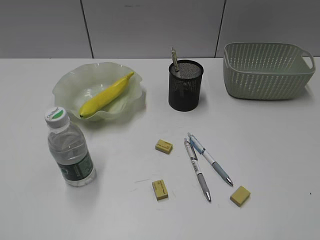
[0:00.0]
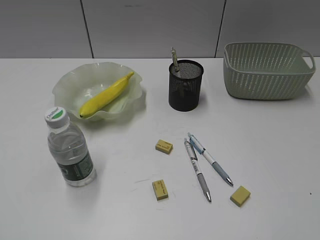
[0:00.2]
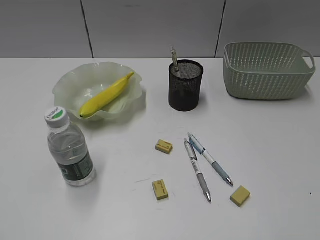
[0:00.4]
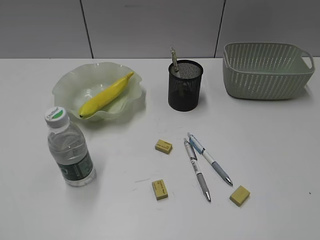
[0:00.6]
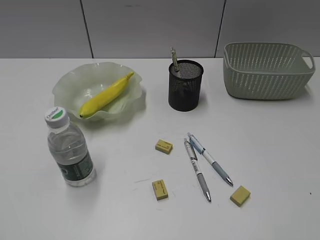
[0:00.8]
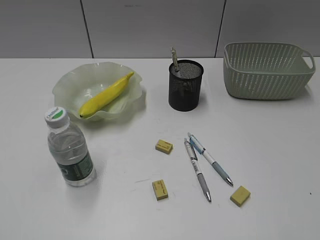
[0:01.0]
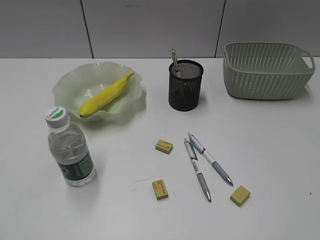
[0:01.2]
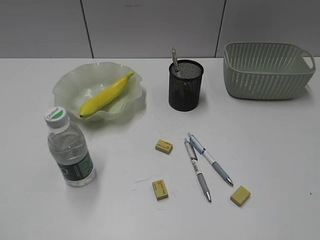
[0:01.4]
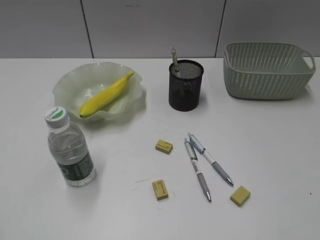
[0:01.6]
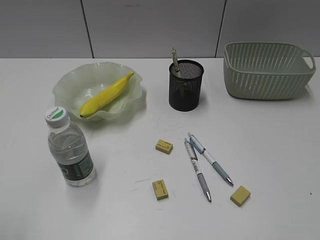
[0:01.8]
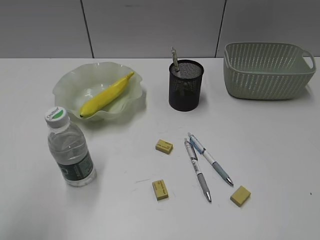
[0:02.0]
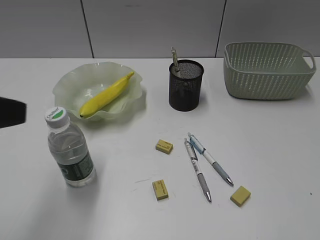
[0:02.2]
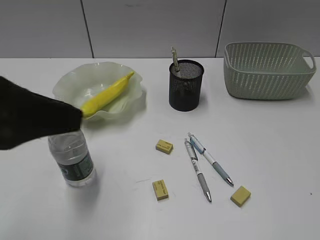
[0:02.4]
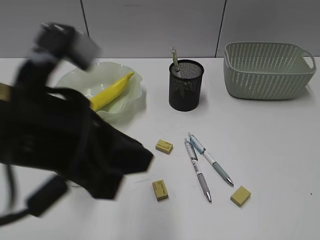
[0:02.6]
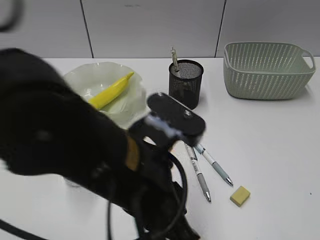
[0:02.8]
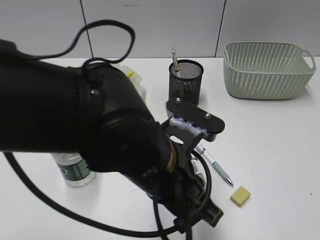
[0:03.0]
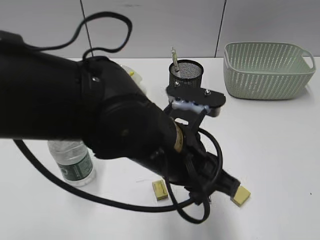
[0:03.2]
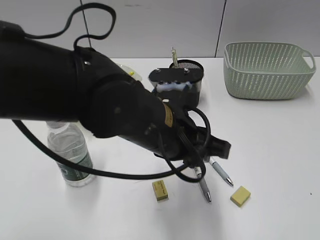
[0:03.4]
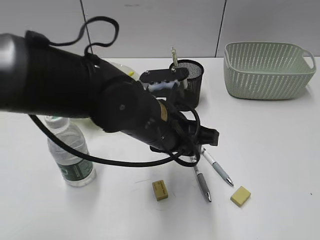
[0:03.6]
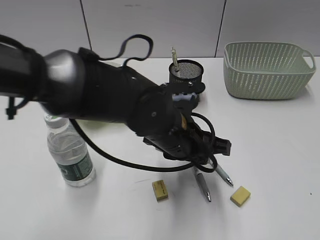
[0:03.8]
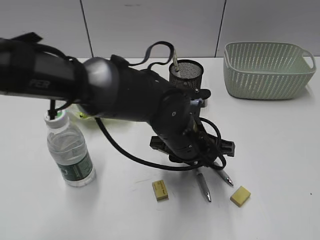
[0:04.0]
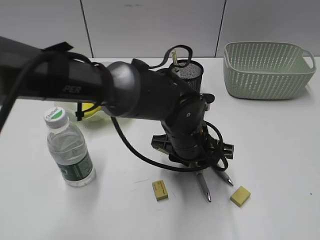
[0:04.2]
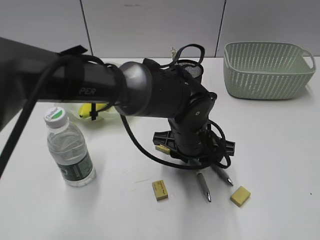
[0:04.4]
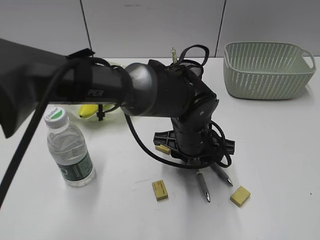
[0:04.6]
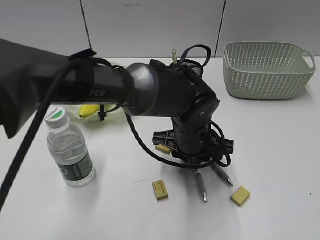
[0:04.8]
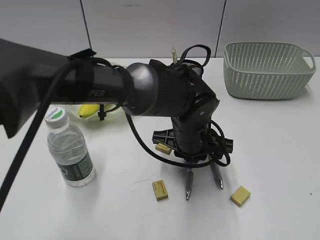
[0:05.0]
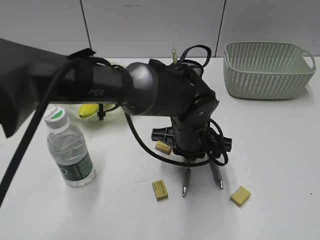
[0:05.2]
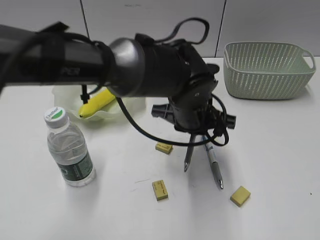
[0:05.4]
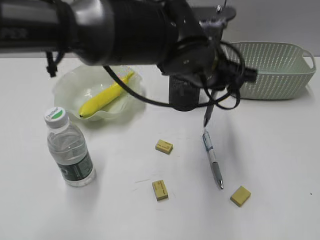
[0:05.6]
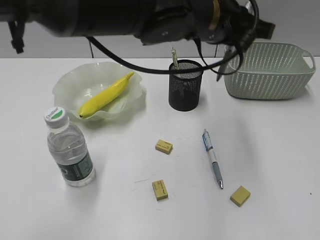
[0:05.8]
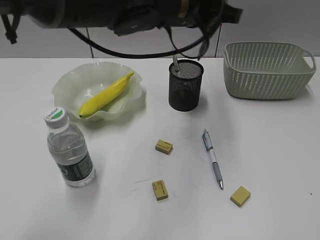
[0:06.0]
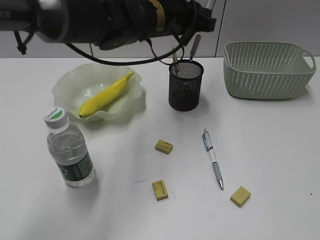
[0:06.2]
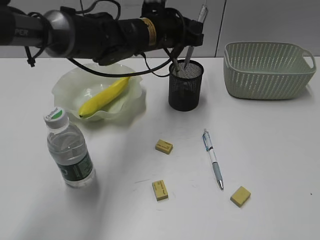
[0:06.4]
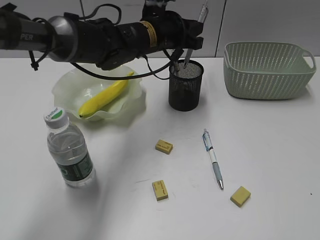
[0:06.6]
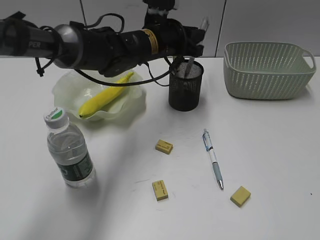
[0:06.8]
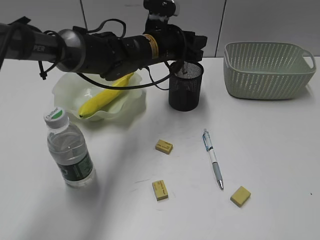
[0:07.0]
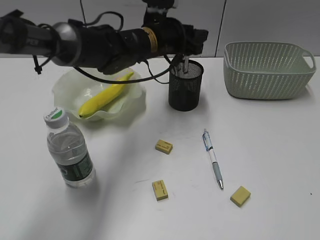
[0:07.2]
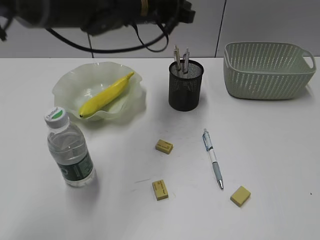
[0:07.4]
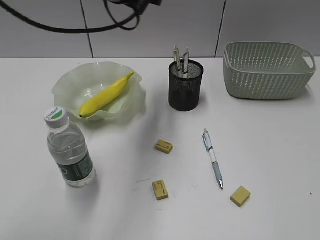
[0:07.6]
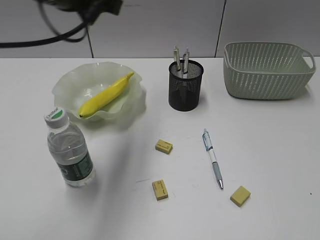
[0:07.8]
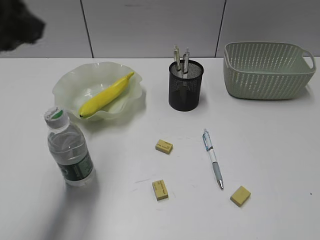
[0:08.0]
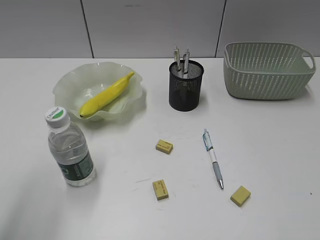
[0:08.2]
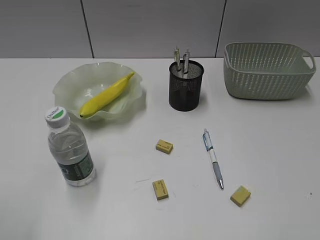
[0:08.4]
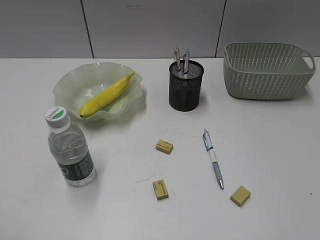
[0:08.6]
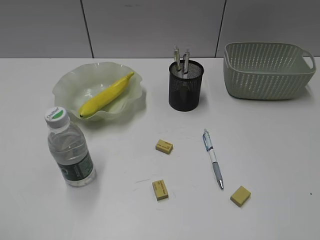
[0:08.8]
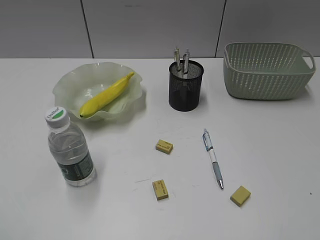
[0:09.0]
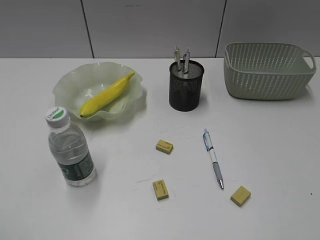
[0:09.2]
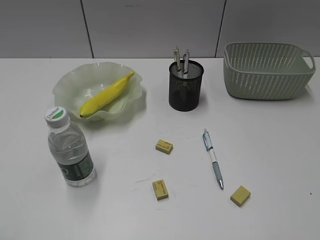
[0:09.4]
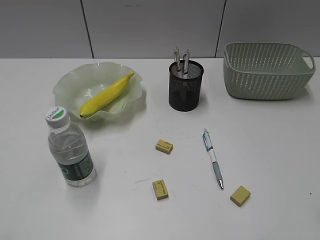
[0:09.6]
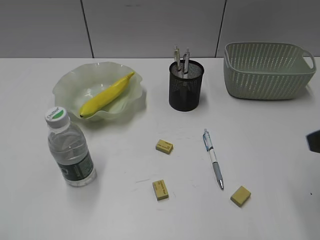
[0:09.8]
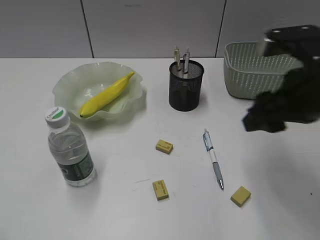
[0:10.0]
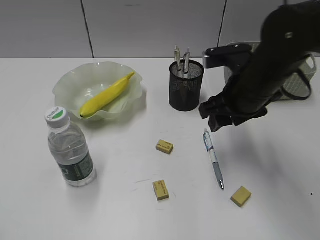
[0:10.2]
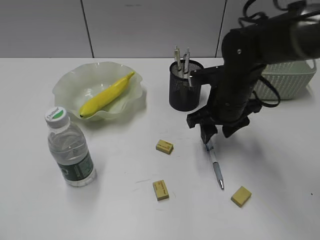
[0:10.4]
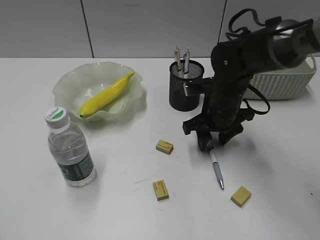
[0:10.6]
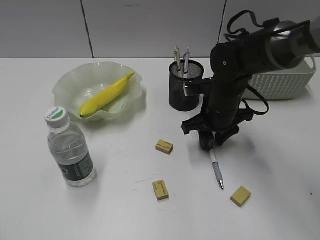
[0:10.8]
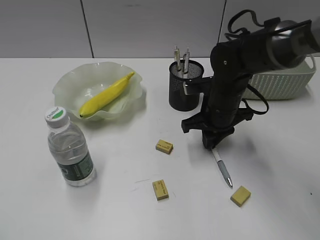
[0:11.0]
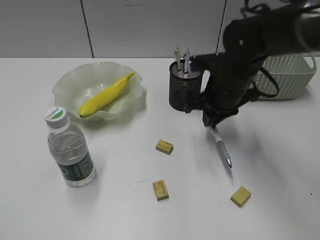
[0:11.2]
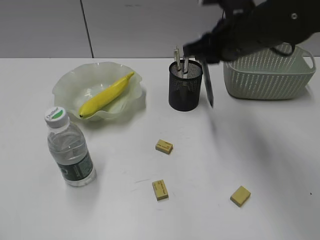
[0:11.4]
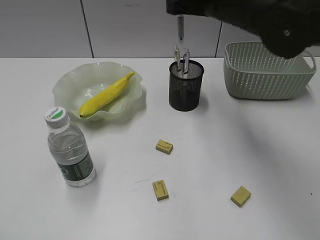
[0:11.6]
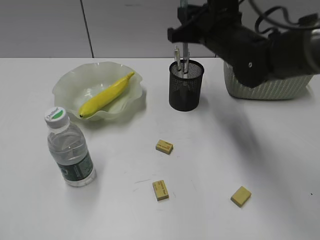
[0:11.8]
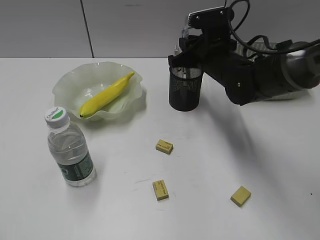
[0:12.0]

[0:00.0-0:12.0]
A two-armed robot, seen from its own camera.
Step, 0.0 to 5.0 s: Grasp the gray pen with left gripper.
Step, 5.2 to 7.2 s: Place the gray pen in pen holder with left gripper.
Step, 7.4 to 11.0 s: Grasp the blue pen with right gripper.
1.6 to 3.0 s: The left gripper is displaced to the right and forward by some 35 cm.
3.0 to 4.4 s: The left gripper goes approximately 15 cm forward, downward and to the right.
4.4 to 6.0 s: The left gripper heads upward and forward, covering roughly 20 cm, and closes.
6.0 to 7.6 s: The left gripper moves to the left, some 10 cm, travels downward and back again, approximately 10 cm each way, and opens.
7.6 to 9.0 s: The left gripper heads backward and to the left, covering some 50 cm, and opens.
9.0 to 10.4 s: The right gripper goes approximately 40 cm forward, to the left and downward.
10.4 to 12.0 s: The right gripper moves up and down over about 15 cm, changing direction 2 times, and closes.

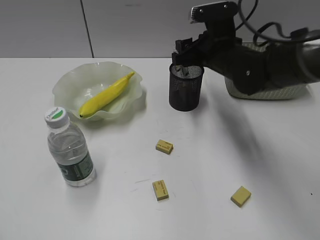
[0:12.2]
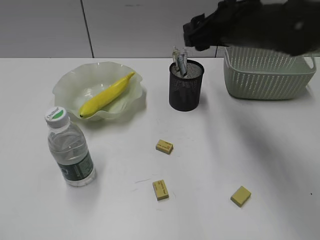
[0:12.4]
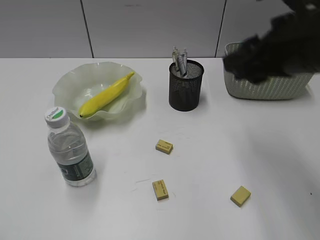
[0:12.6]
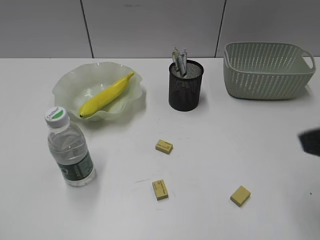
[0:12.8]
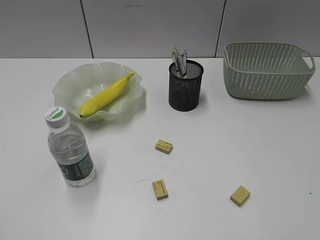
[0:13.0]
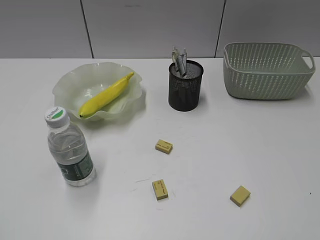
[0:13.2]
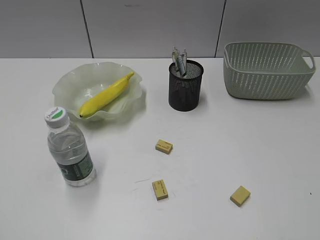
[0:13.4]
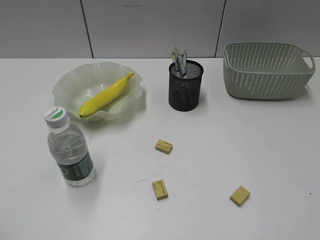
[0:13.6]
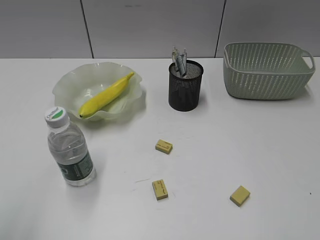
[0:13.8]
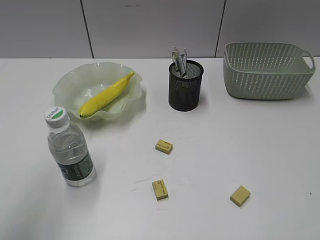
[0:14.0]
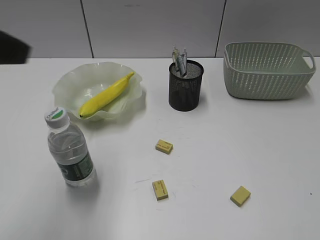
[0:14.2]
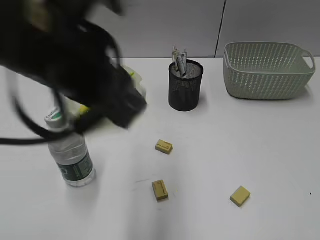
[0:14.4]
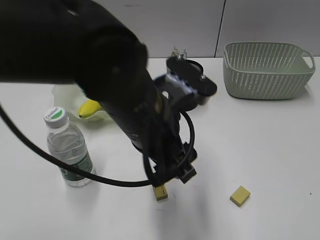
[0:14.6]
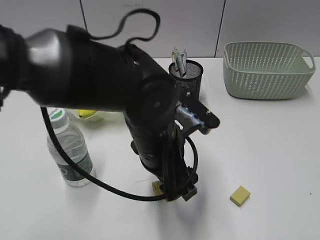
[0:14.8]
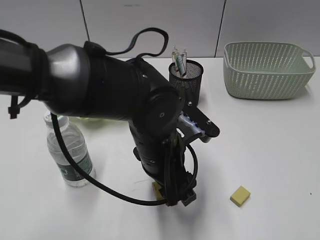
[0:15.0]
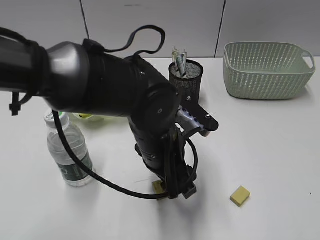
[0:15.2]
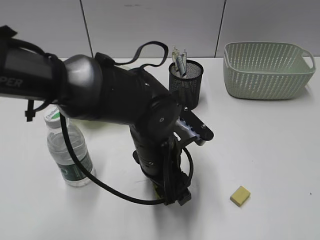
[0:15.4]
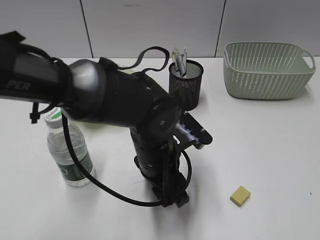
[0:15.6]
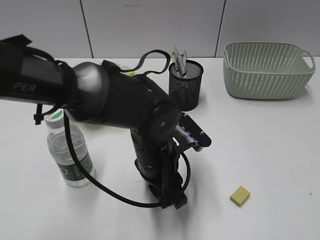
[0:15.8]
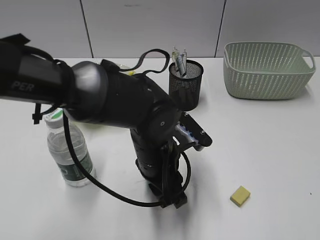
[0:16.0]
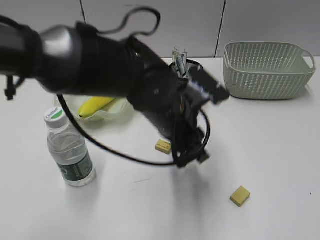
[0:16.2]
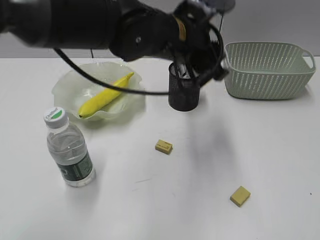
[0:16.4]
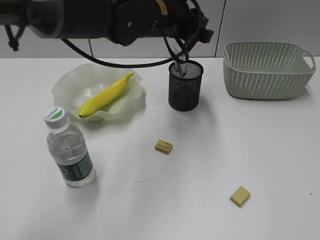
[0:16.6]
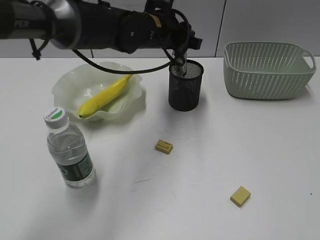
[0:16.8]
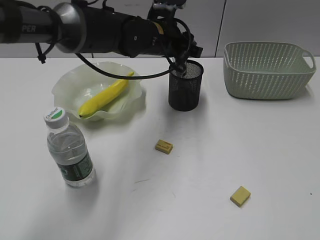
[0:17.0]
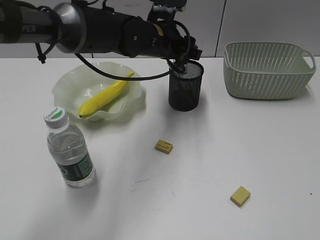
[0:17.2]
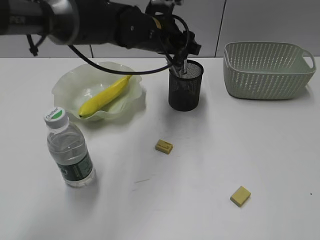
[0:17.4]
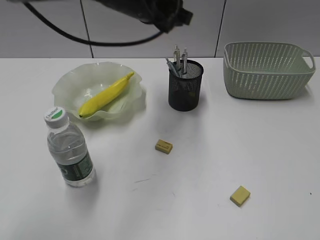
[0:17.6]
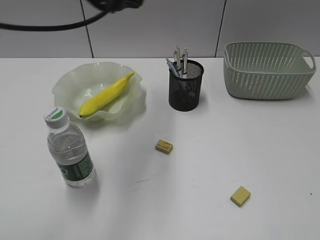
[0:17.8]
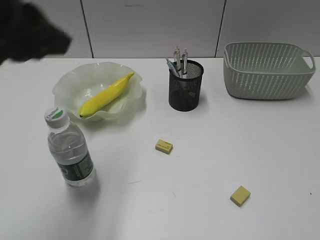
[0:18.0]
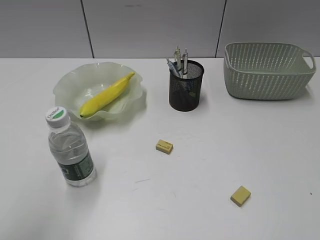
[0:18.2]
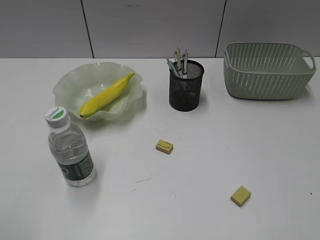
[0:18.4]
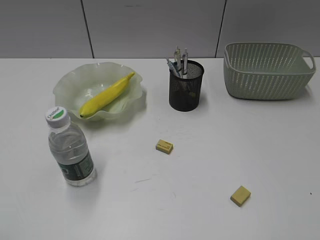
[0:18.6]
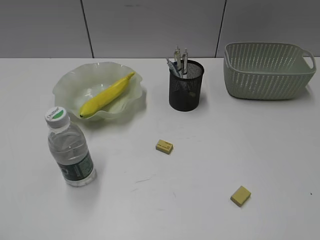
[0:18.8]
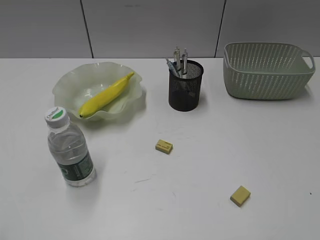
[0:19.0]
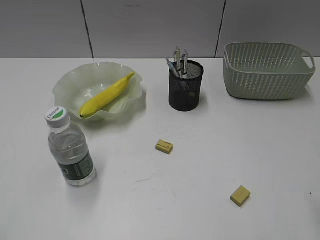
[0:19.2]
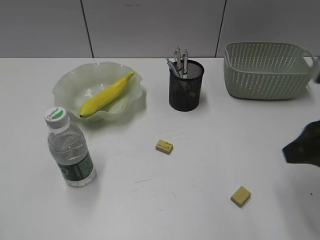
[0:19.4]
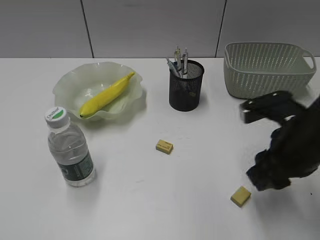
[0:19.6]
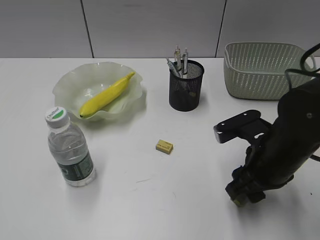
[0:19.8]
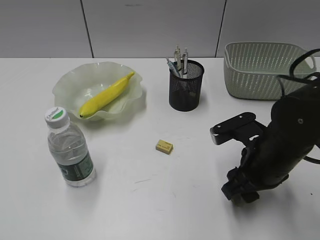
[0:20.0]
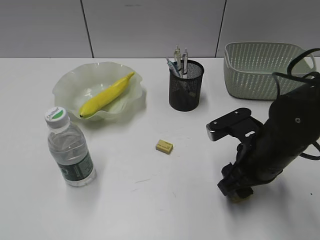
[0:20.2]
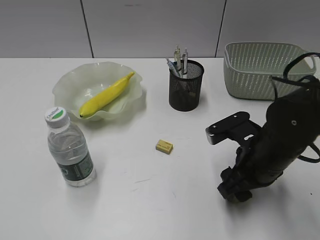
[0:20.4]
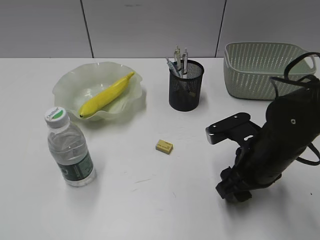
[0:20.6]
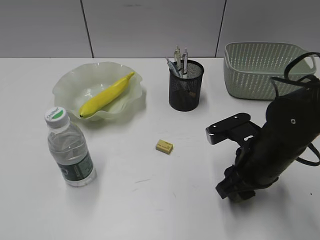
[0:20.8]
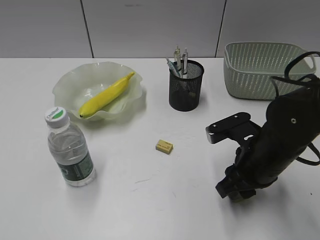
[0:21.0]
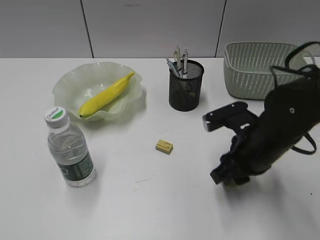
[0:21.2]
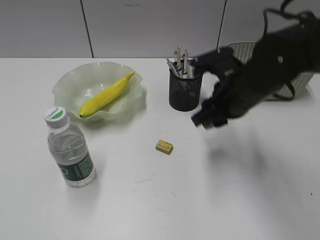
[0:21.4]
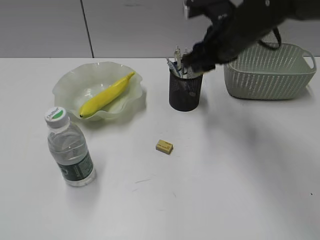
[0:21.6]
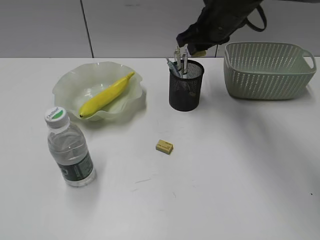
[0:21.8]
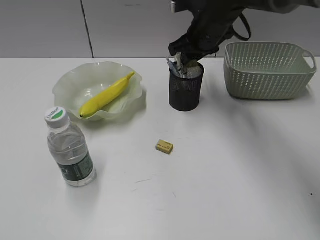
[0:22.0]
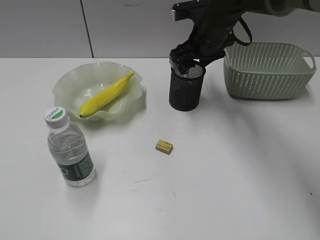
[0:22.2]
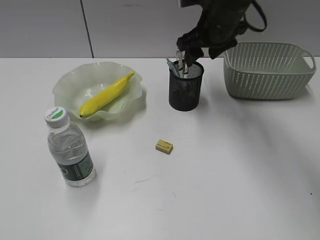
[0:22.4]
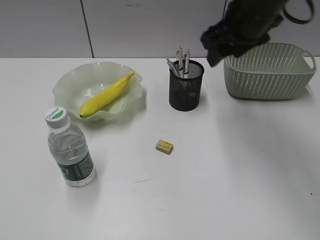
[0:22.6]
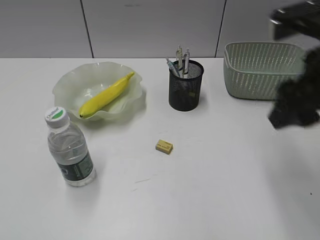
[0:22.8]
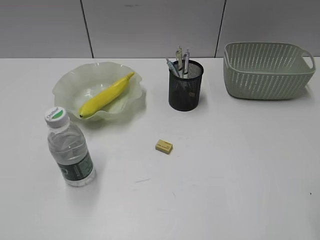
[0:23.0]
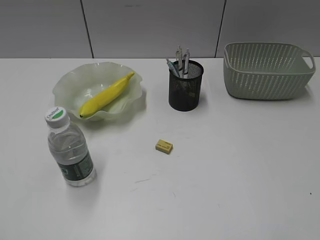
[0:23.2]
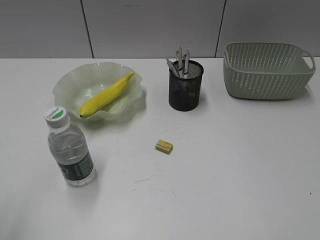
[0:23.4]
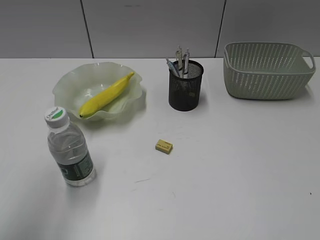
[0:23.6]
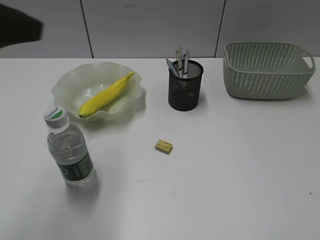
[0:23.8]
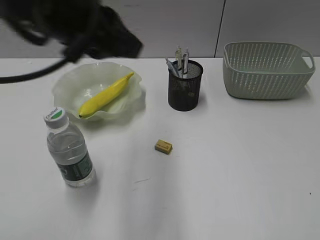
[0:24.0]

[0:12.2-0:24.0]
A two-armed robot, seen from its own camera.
Step, 12.4 to 15.8 s: Grasp the eraser with left gripper.
Step, 16.0 to 17.2 s: Place the eraser in pen holder with left gripper.
Step, 17.4 to 21.0 s: Grasp the eraser with right gripper.
Step, 21.2 to 22.4 s: Place the eraser in pen holder with right gripper.
12.2 to 13.6 s: The right gripper is displaced backward and to the right by approximately 40 cm, and closes its fingers.
13.6 to 15.2 s: The left gripper shifts about 40 cm to the right, forward and downward, and opens.
15.2 to 16.6 s: The left gripper moves forward and upward, roughly 20 cm, and closes up.
16.6 to 18.2 s: The left gripper goes roughly 35 cm backward and to the left.
18.2 to 19.6 s: The left gripper shifts some 15 cm backward and to the left, while the right gripper heads forward, to the left and downward, covering approximately 25 cm.
19.6 to 21.0 s: The right gripper moves downward, approximately 5 cm, and opens, then closes again.
21.0 to 22.6 s: The right gripper shifts roughly 20 cm upward and forward, and opens.
22.6 to 24.0 s: The left gripper goes some 35 cm forward and to the right; the right gripper travels backward and to the right by about 40 cm, and closes up.
